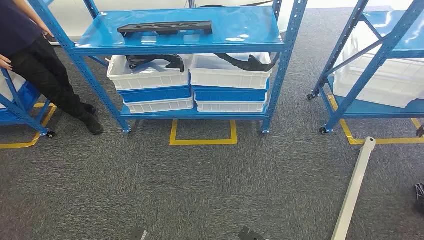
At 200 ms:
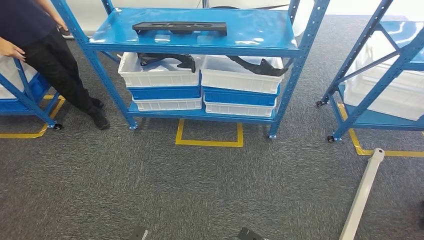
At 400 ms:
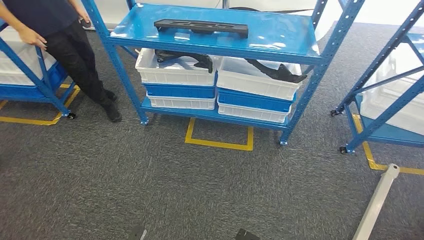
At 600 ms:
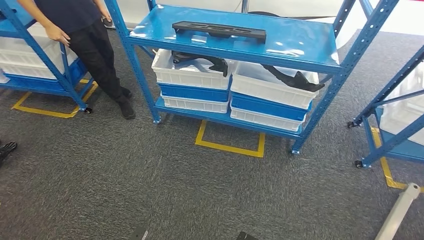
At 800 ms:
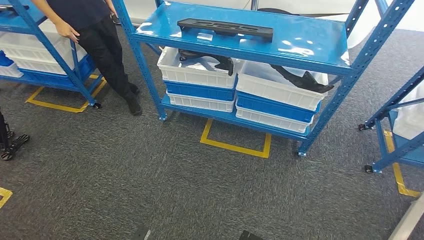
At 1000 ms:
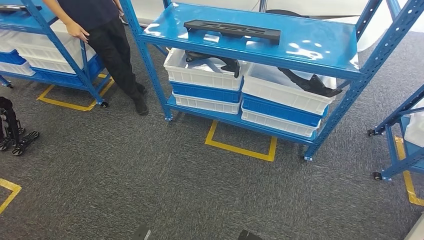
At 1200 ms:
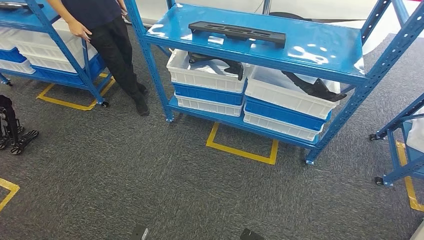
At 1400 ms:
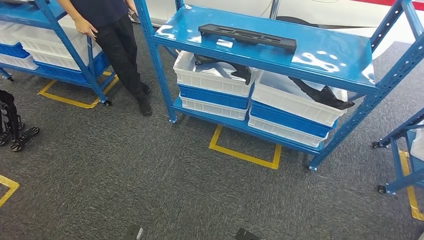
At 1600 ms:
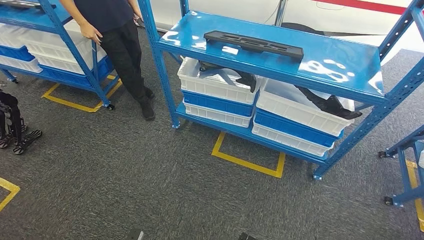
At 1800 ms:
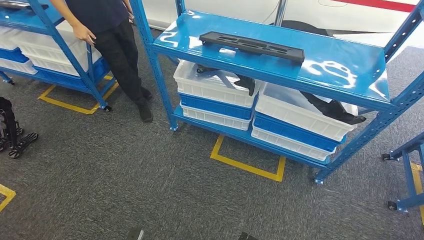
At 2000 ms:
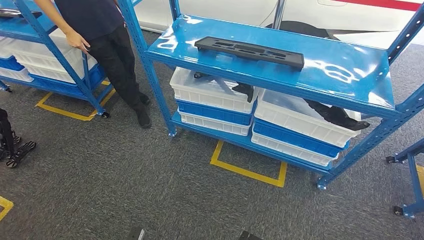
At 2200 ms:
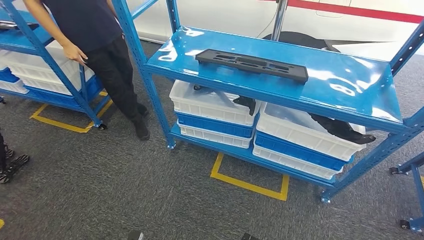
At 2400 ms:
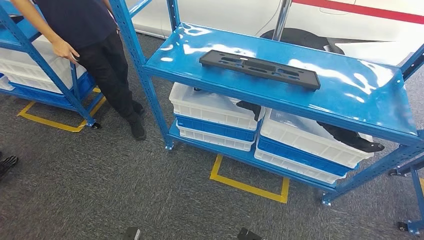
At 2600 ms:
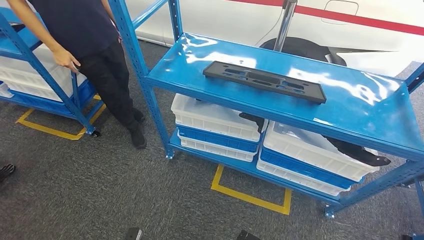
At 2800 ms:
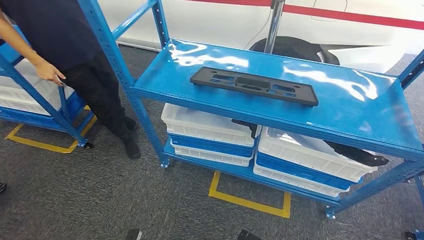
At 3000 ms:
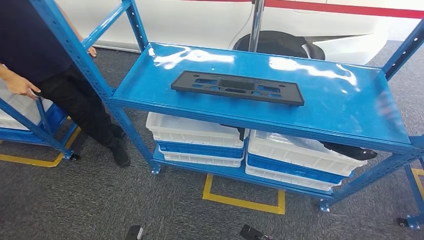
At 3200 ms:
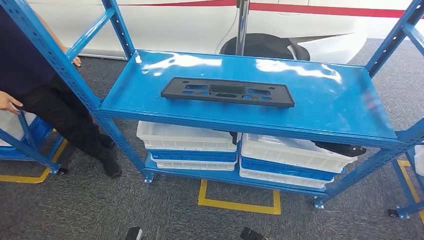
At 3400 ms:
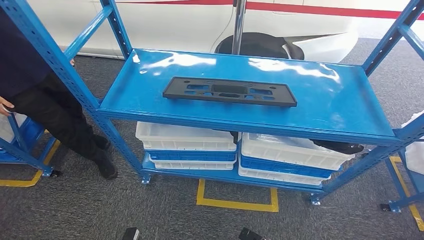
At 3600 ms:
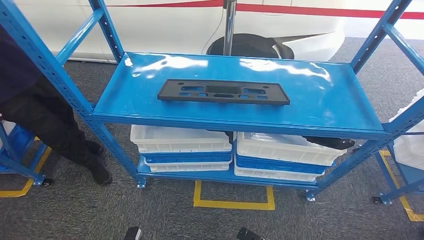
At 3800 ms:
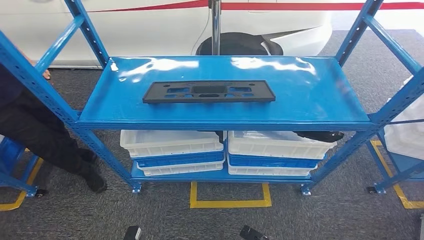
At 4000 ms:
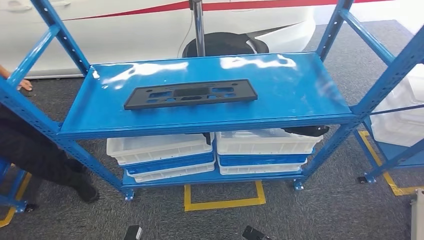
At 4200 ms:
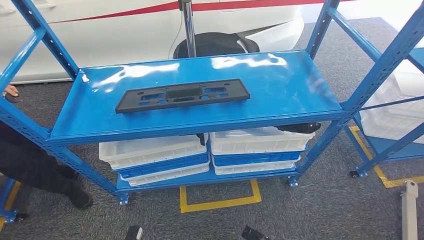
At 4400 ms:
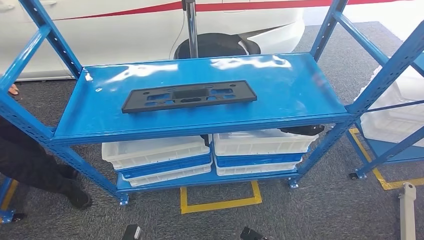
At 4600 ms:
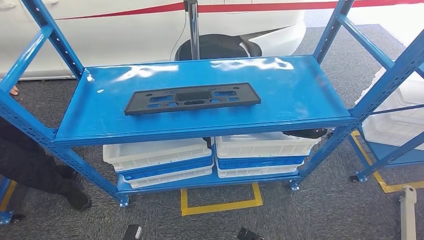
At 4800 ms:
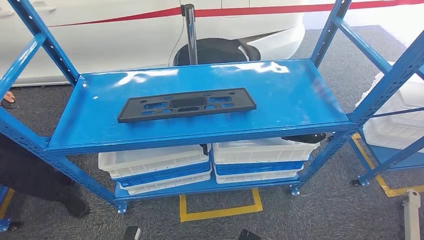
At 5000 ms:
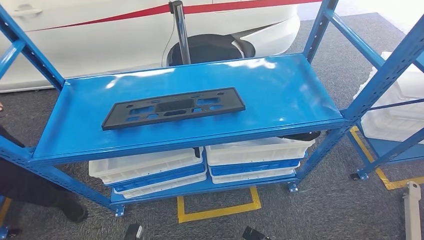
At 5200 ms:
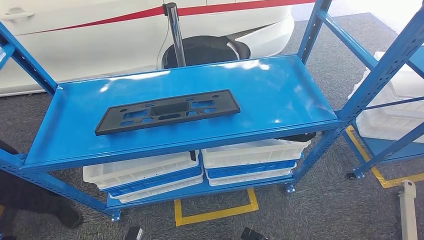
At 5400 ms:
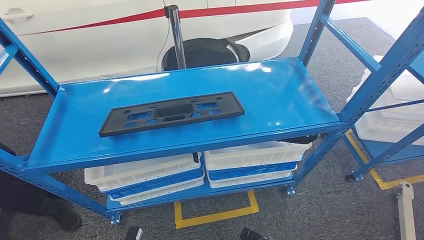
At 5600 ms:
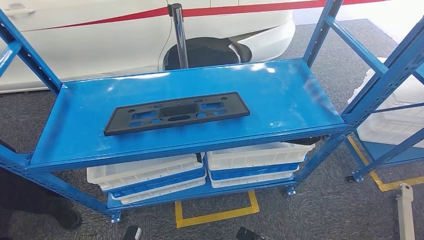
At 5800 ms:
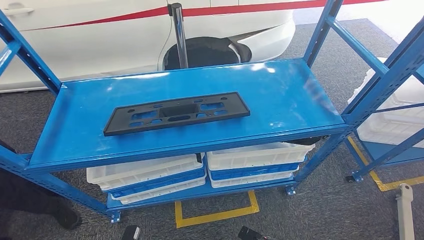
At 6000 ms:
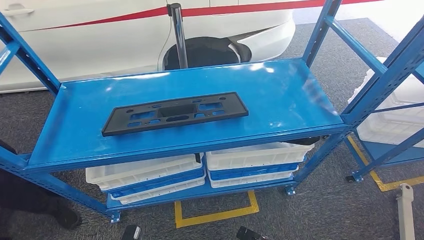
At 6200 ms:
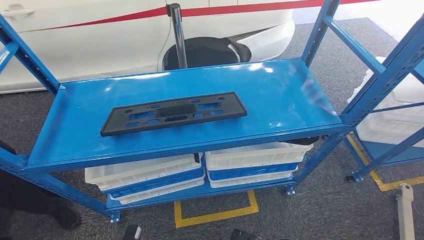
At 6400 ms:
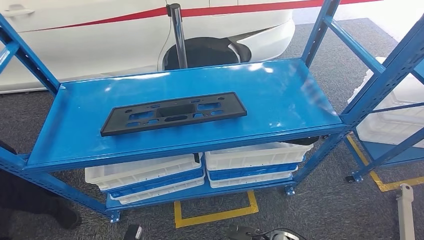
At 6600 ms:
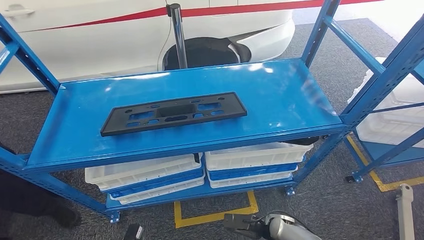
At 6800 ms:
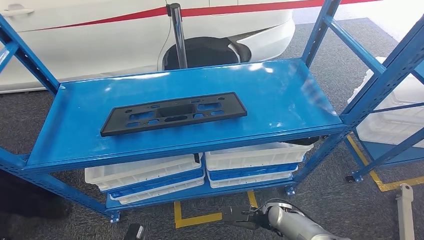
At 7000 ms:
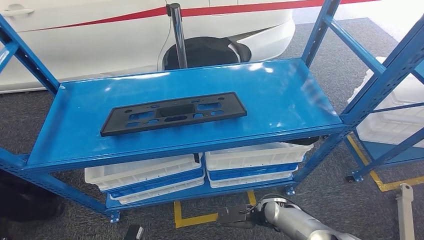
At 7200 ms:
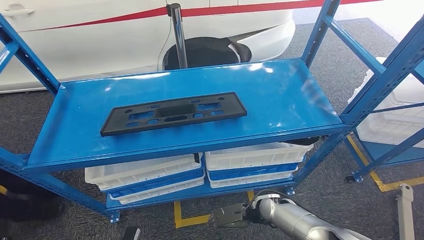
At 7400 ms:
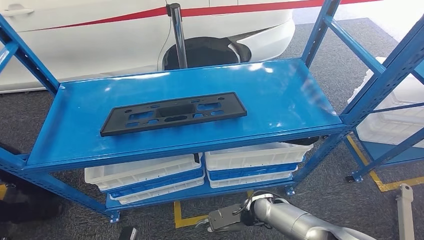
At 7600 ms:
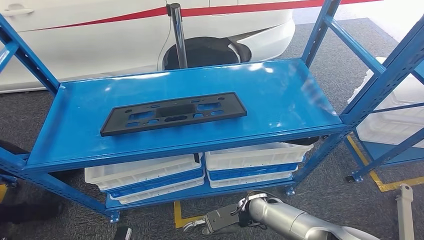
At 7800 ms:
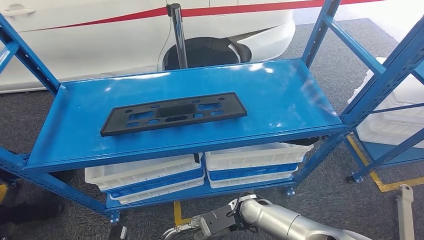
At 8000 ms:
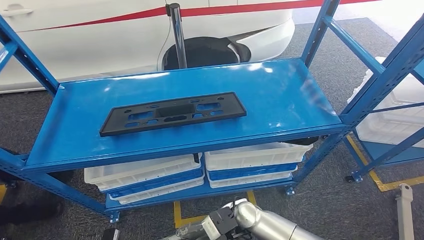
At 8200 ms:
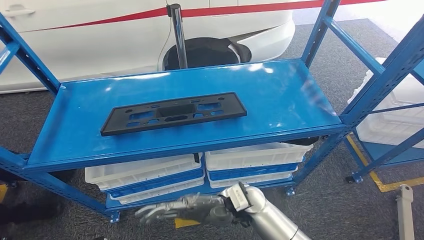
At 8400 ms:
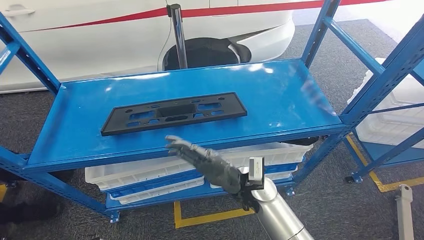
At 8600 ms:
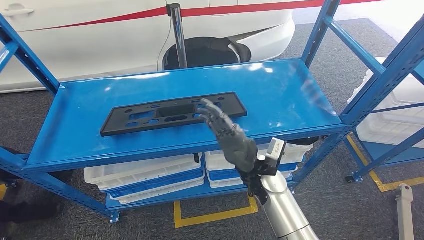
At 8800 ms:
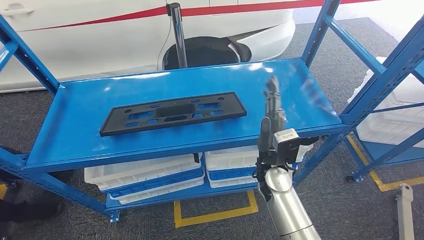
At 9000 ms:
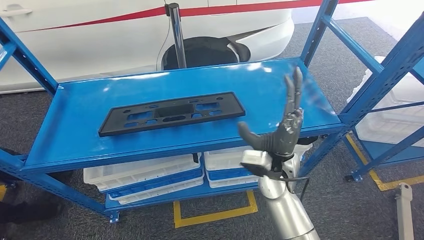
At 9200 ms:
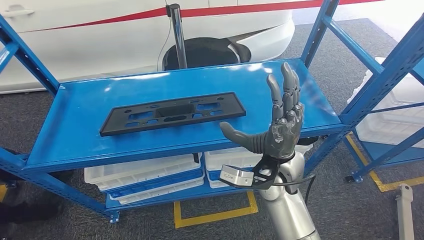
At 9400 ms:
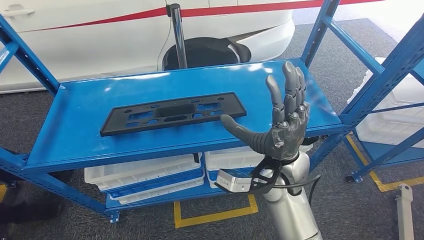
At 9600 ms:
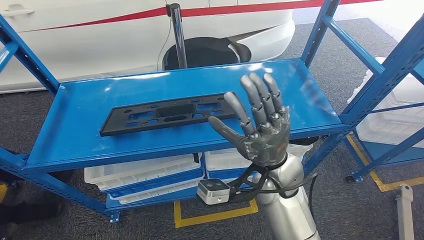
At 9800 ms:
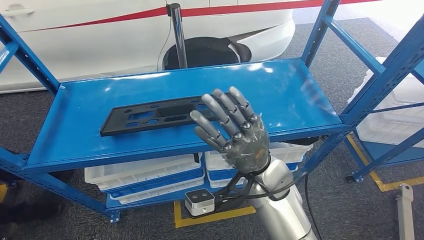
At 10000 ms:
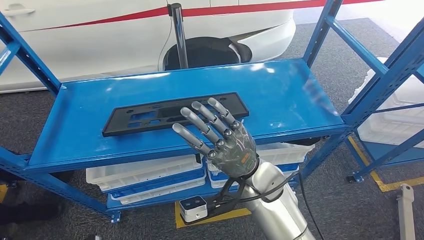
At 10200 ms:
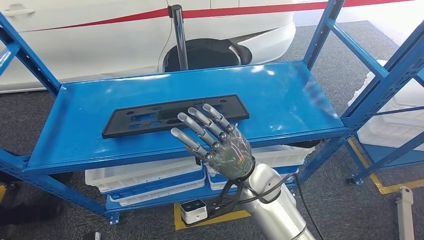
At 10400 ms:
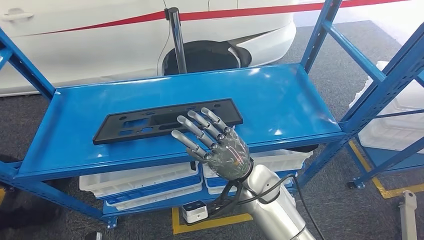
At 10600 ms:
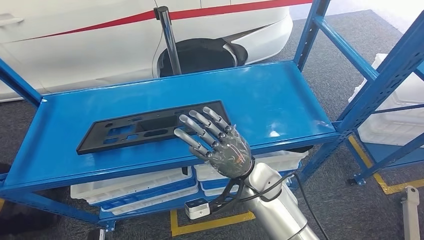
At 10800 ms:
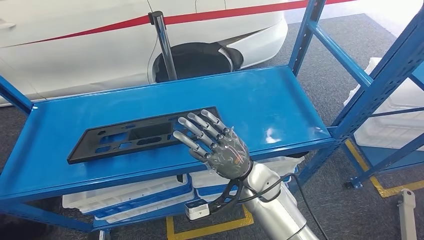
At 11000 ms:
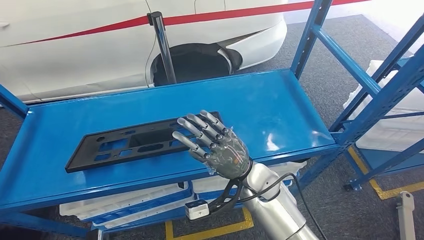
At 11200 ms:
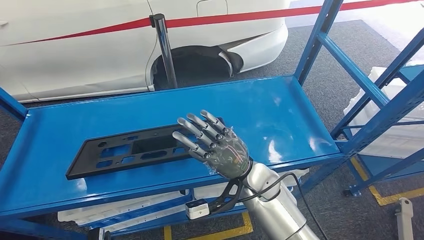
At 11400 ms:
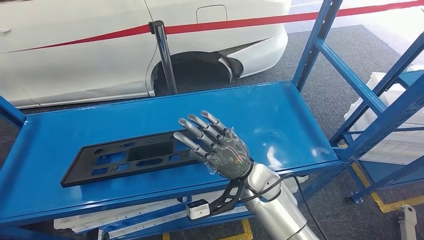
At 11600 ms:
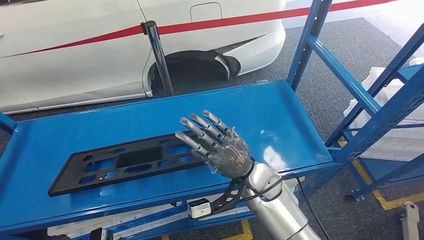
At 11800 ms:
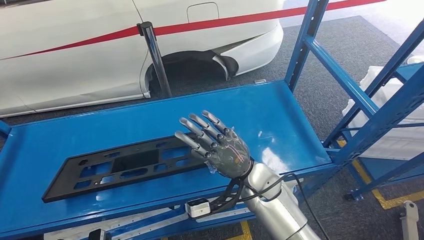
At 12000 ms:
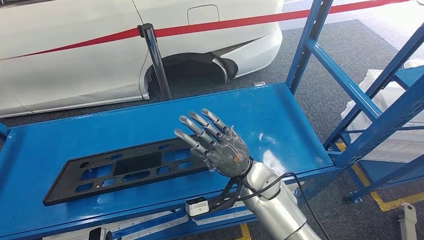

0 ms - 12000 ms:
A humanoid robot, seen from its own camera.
6000 ms - 7600 ms: The right hand heads upward, forward and to the left, covering approximately 20 cm.
7600 ms - 9000 ms: The left hand goes roughly 10 cm to the left and backward, while the right hand goes some 15 cm upward.

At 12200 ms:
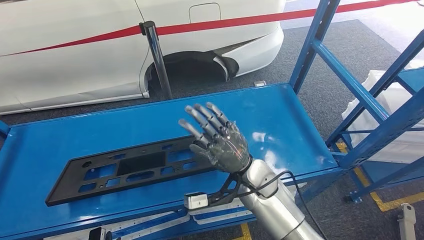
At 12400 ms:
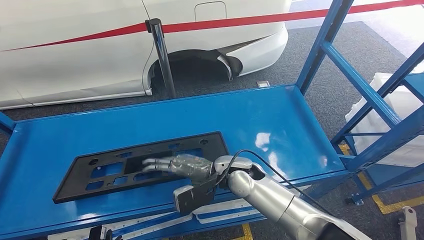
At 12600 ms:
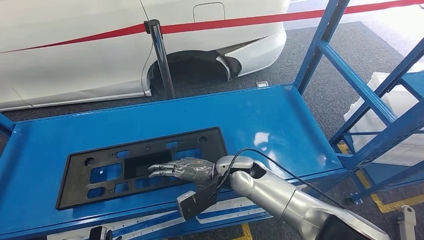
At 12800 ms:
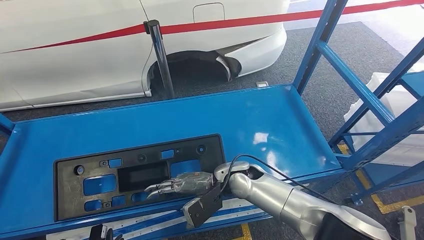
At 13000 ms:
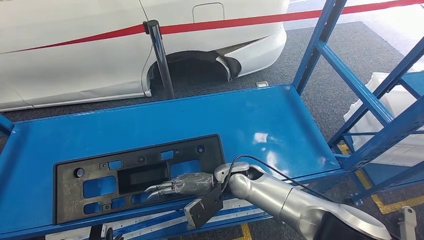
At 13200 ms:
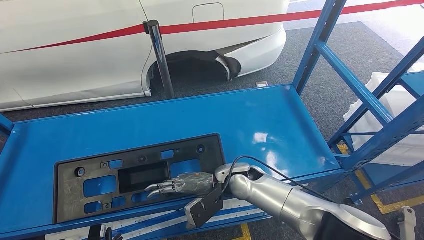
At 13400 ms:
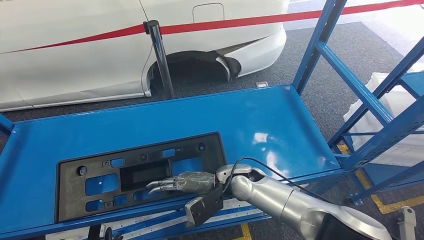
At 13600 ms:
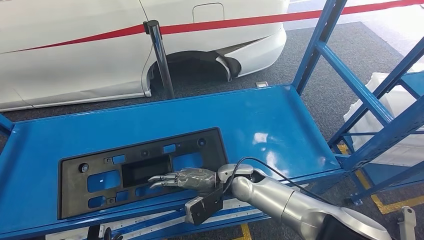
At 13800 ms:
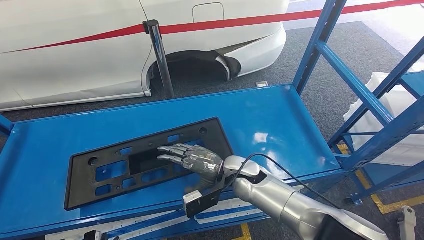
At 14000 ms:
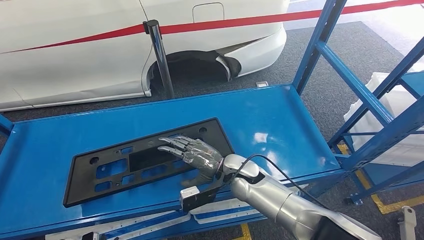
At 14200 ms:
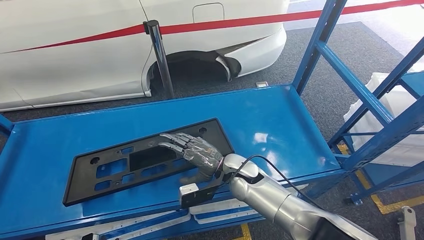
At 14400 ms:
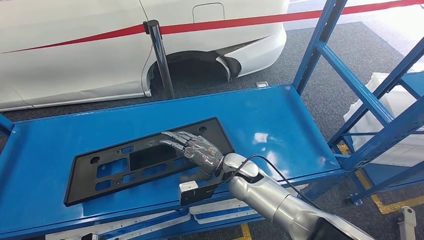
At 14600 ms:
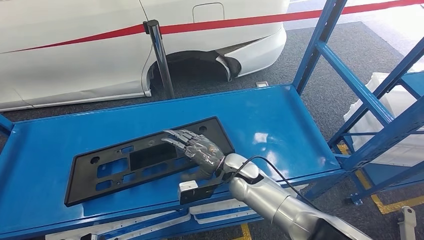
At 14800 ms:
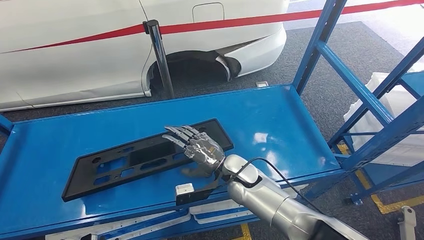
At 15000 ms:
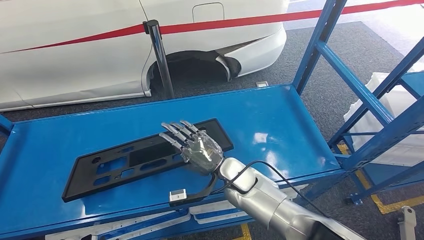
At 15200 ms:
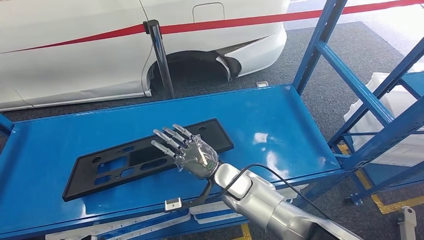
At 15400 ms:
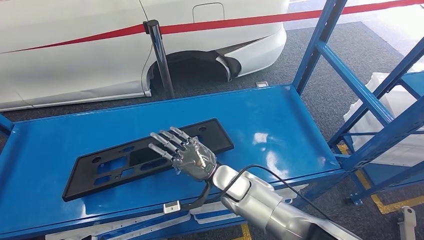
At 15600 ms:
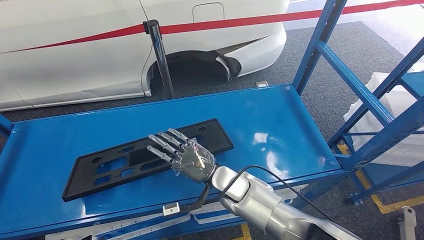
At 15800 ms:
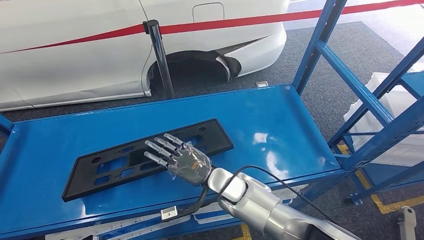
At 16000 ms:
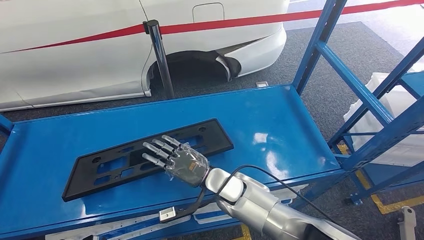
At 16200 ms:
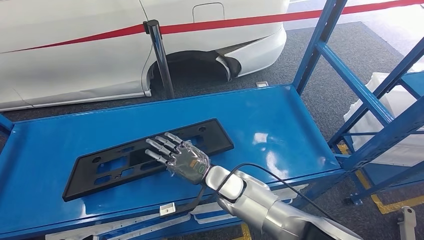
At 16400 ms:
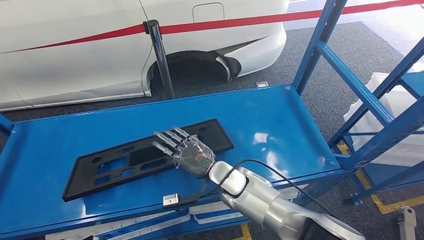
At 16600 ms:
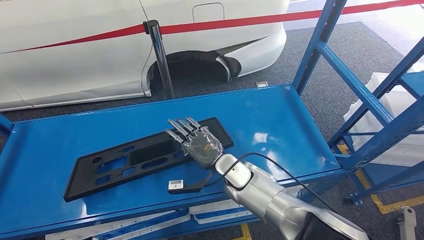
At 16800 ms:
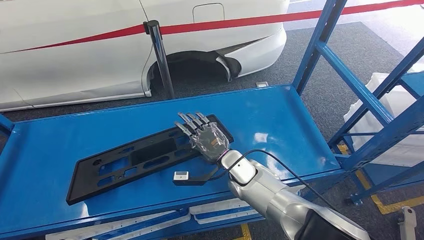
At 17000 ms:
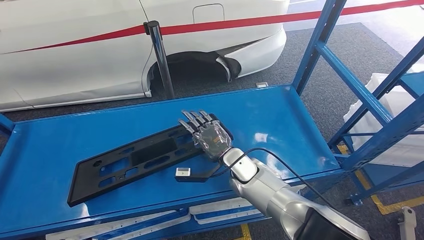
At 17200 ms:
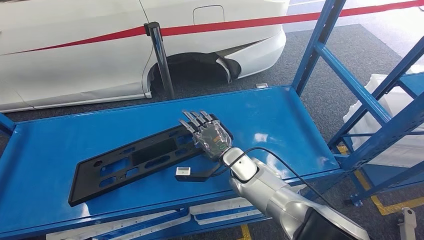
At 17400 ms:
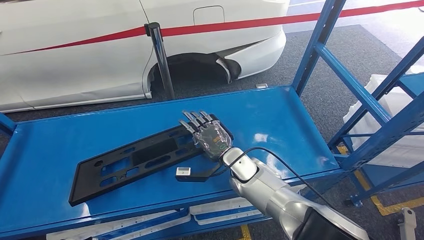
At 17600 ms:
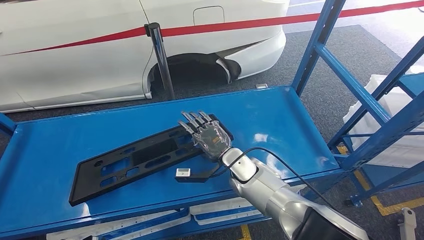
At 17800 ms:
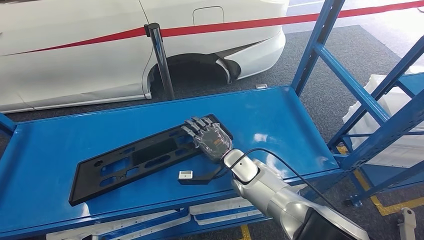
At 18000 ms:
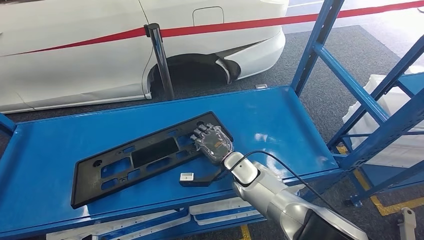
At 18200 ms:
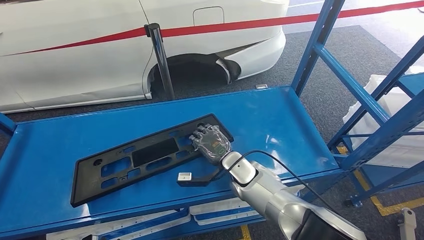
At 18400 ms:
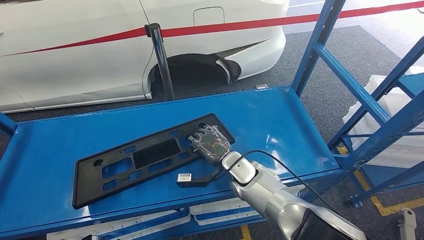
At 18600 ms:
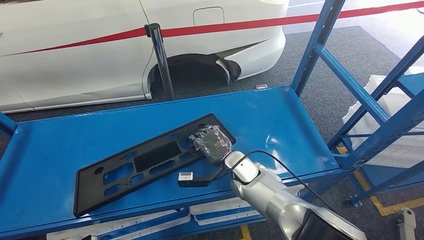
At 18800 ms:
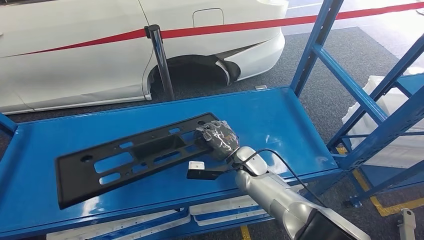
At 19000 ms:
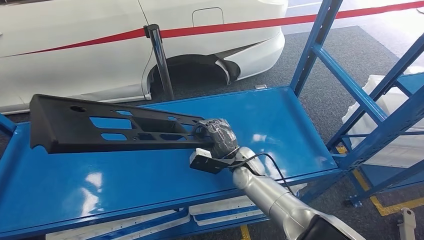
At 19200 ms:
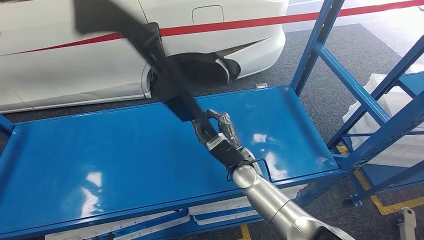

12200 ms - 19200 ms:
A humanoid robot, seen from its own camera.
15000 ms - 16400 ms: There are only small adjustments of the hands.
16400 ms - 17800 ms: The right hand moves approximately 5 cm.
